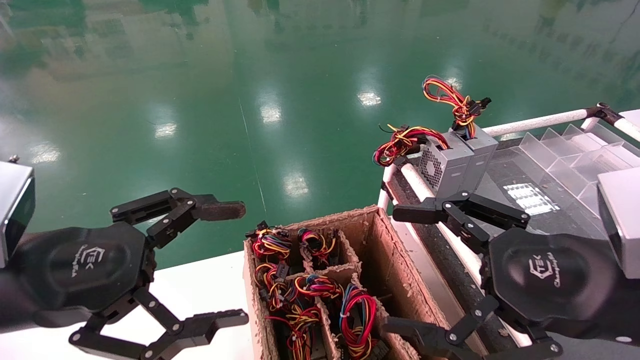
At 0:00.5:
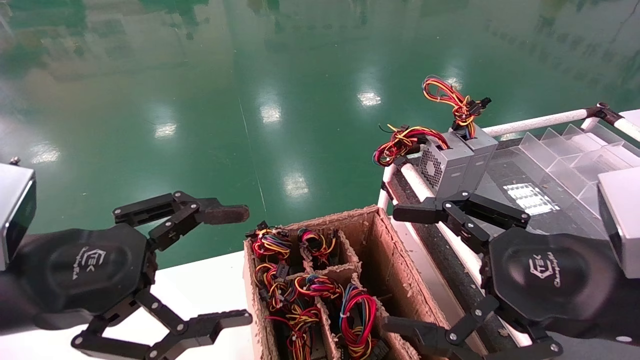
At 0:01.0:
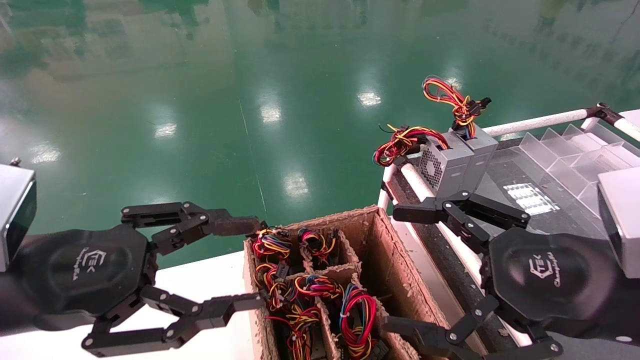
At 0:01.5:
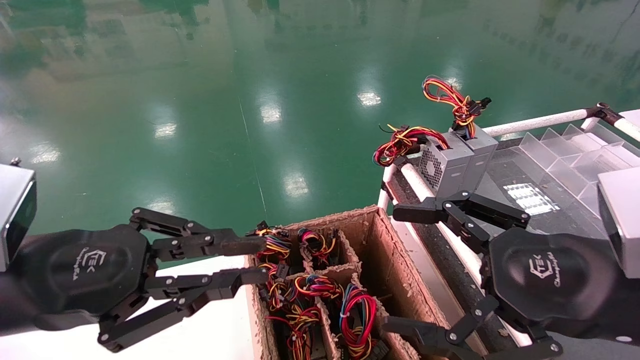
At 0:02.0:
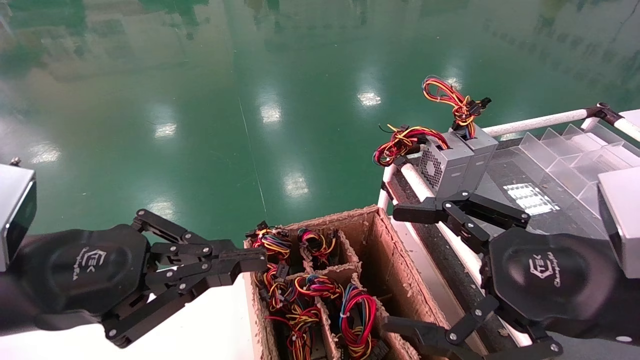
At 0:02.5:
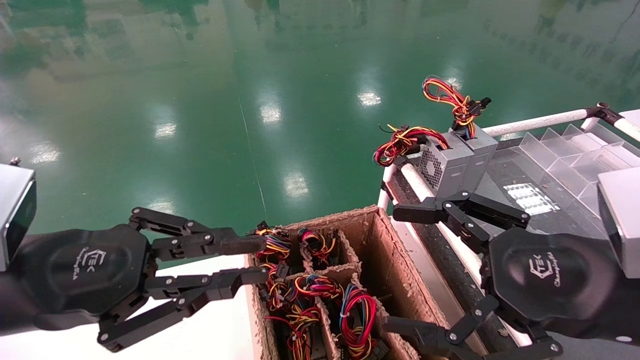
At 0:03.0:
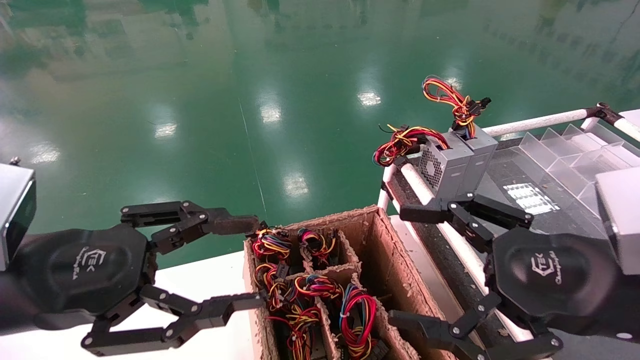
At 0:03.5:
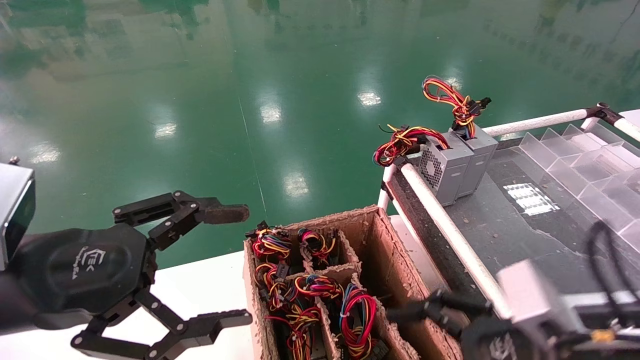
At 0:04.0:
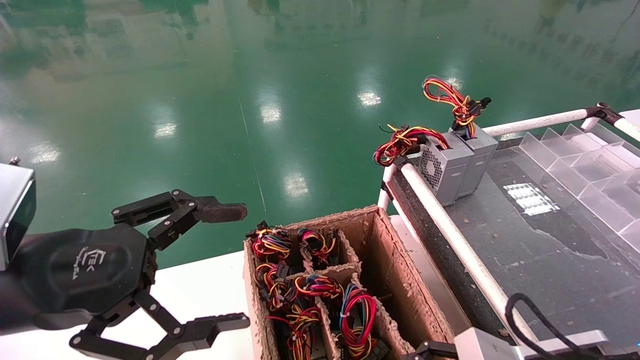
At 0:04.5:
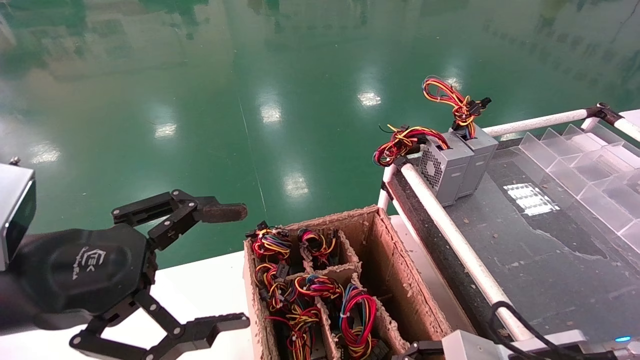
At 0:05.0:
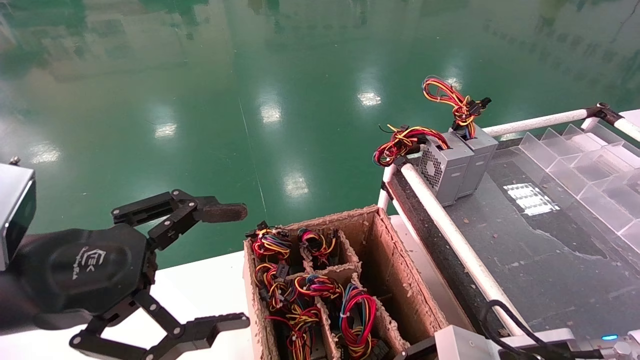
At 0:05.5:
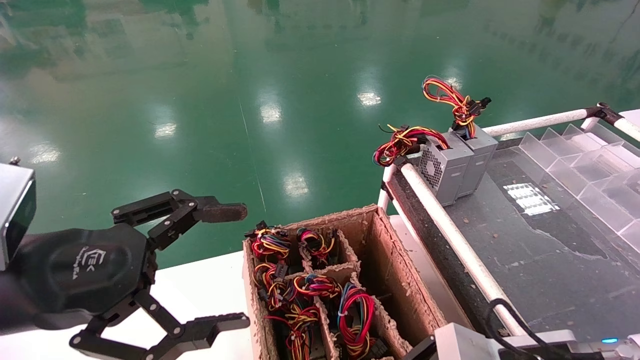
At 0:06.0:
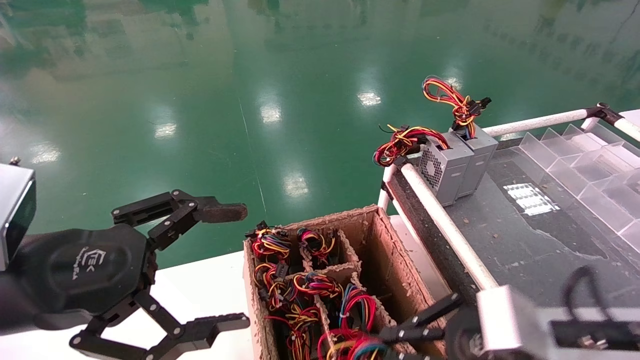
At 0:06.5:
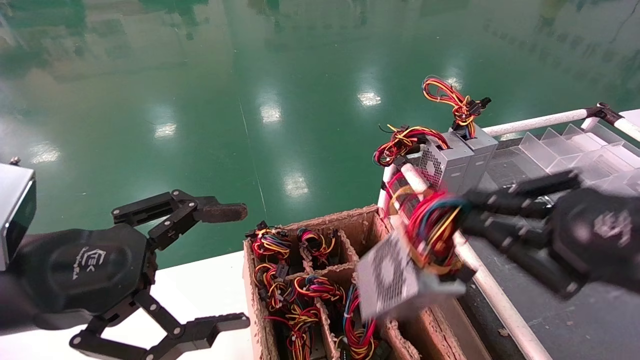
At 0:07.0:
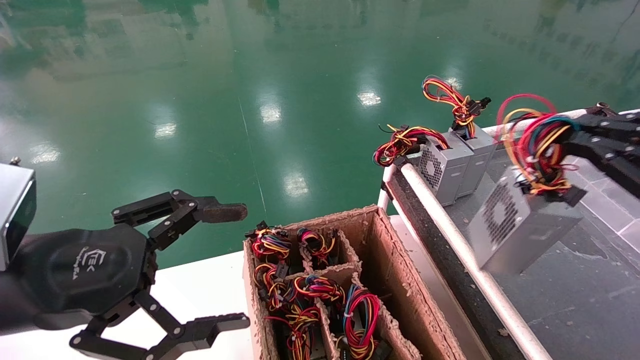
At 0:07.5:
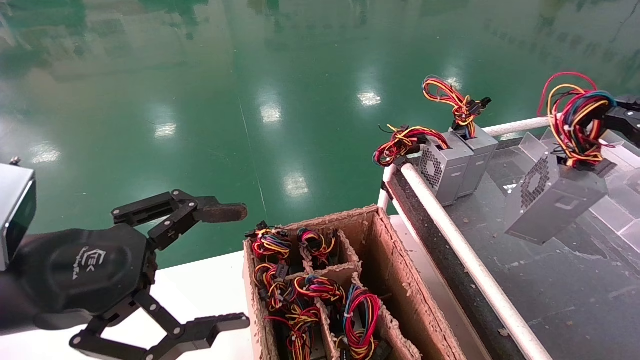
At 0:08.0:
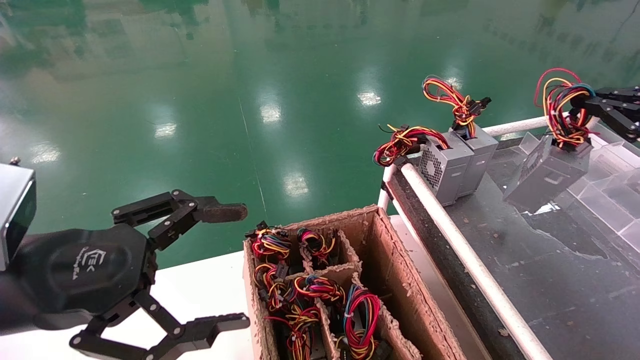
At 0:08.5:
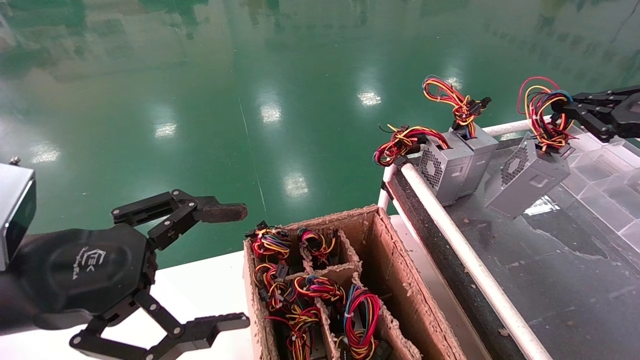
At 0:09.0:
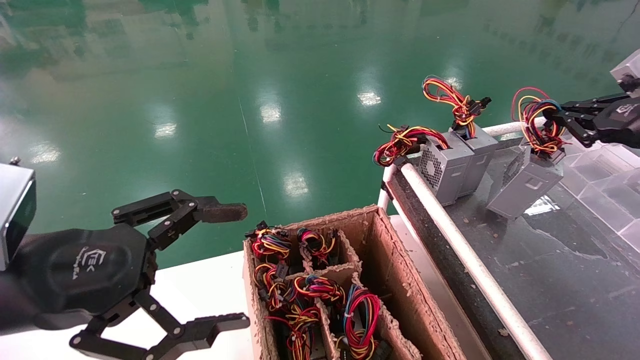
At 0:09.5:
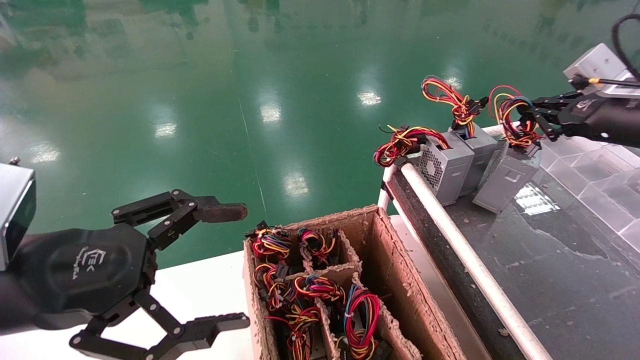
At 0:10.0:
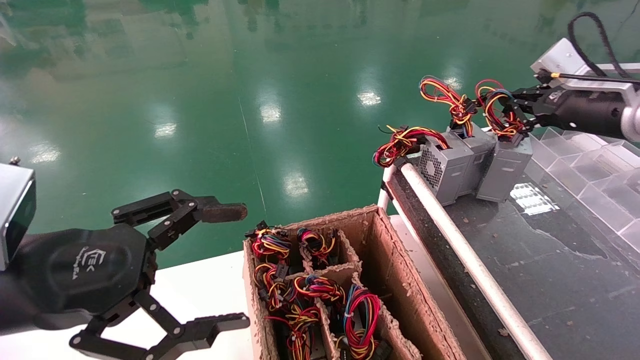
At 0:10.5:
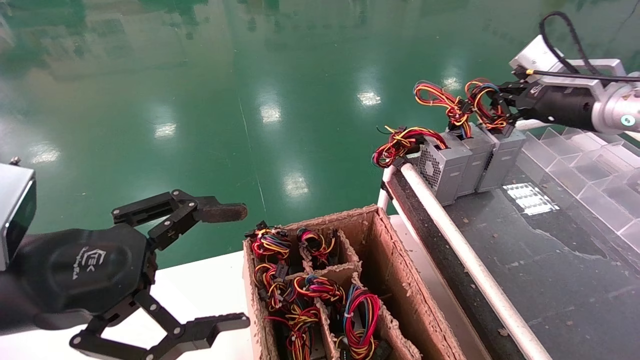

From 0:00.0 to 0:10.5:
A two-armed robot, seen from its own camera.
Step, from 0:02.0 to 0:05.0: Grab and lift the power supply from the large box.
From 0:00.0 to 0:02.0: The left gripper closes its fingers.
From 0:02.0 to 0:04.0: The right gripper goes some 10 cm downward, while the left gripper opens.
From 0:04.0 to 0:06.5: The right gripper travels upward and to the right by some 15 cm, and closes.
From 0:06.5 to 0:08.5: The right gripper is displaced forward, to the right and upward by about 20 cm.
From 0:08.5 to 0:10.5: The right gripper travels forward and to the left by some 15 cm.

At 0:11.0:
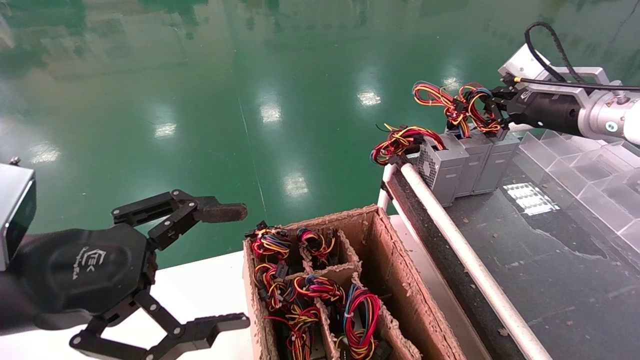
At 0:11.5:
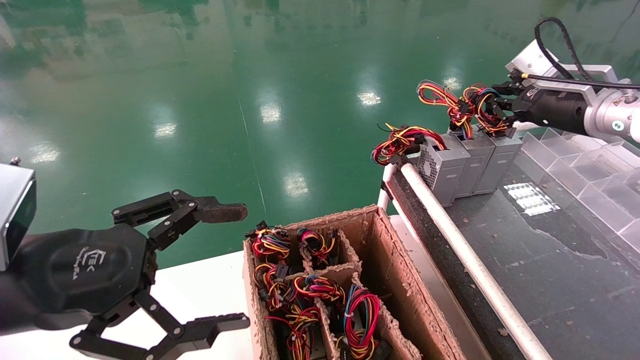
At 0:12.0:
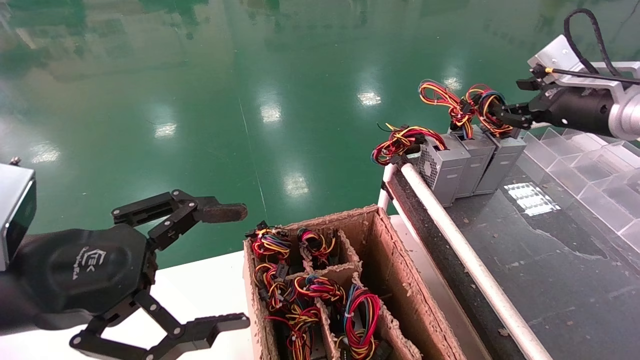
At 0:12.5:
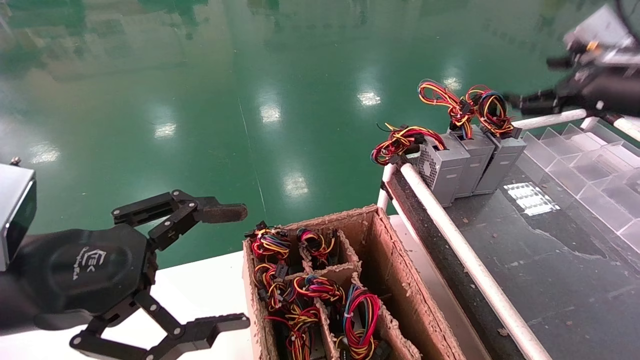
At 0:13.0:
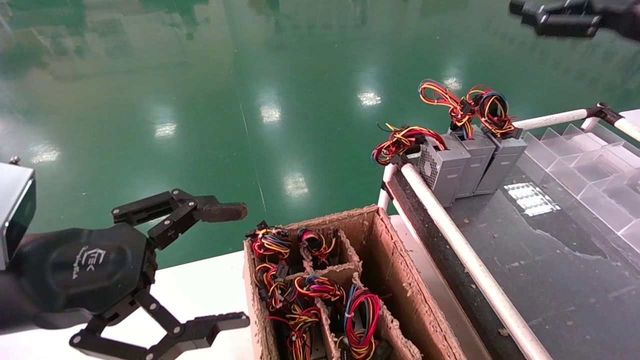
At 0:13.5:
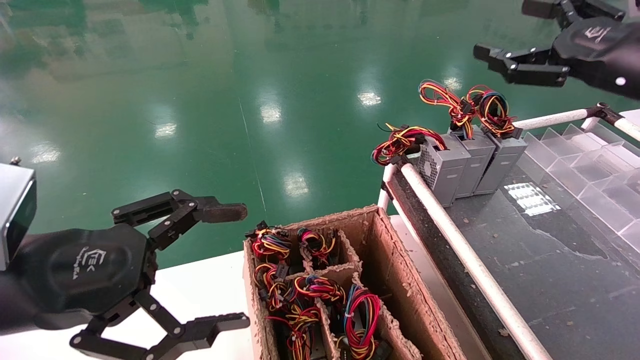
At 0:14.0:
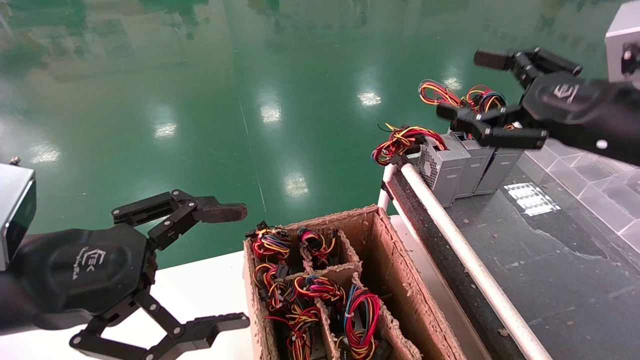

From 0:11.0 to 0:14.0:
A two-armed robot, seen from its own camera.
From 0:11.0 to 0:12.5: The right gripper goes roughly 5 cm backward, and opens up.
From 0:12.5 to 0:14.0: The right gripper is displaced backward and to the left by approximately 10 cm.
